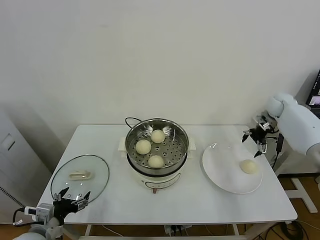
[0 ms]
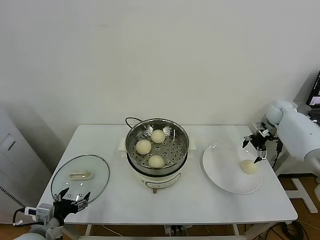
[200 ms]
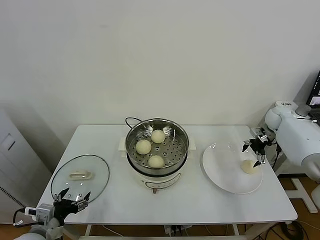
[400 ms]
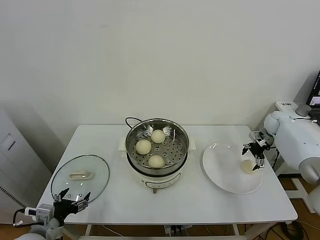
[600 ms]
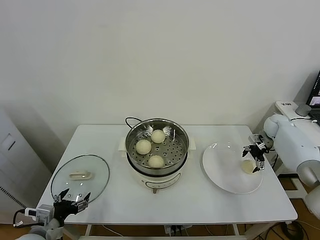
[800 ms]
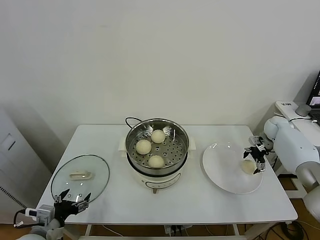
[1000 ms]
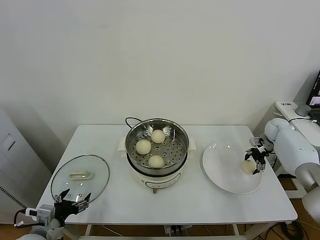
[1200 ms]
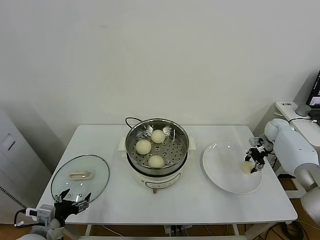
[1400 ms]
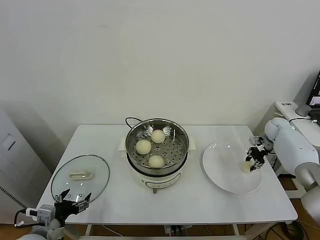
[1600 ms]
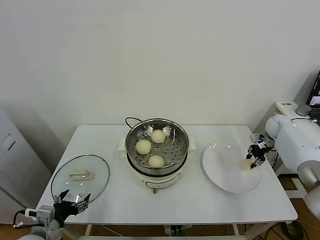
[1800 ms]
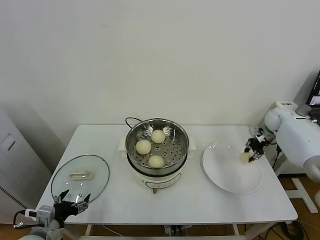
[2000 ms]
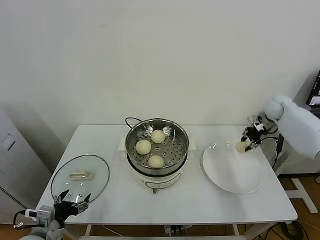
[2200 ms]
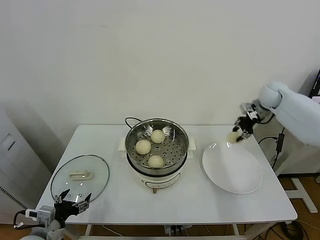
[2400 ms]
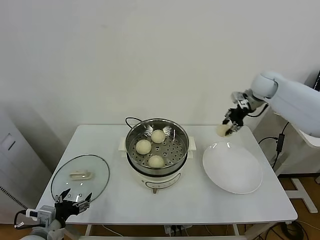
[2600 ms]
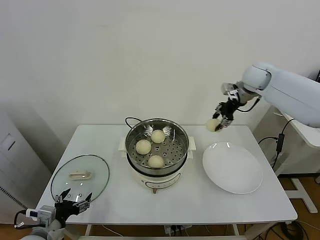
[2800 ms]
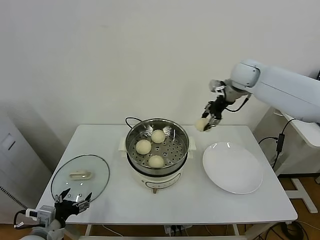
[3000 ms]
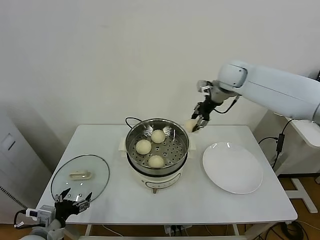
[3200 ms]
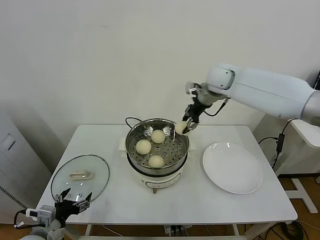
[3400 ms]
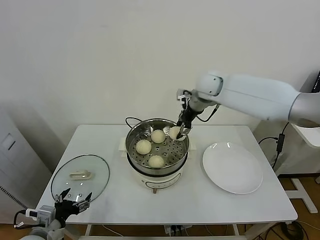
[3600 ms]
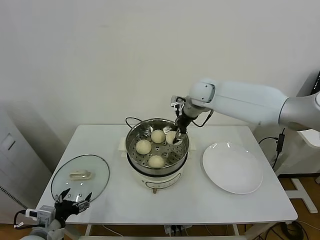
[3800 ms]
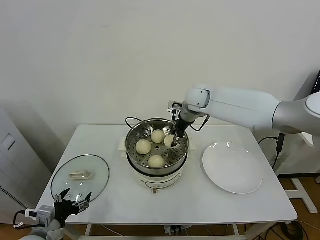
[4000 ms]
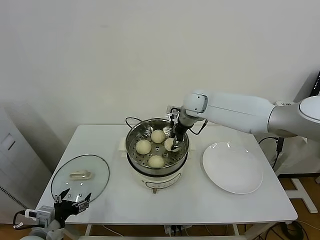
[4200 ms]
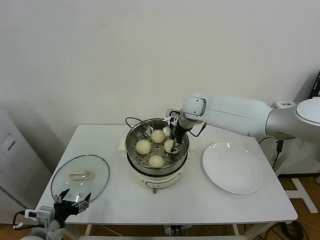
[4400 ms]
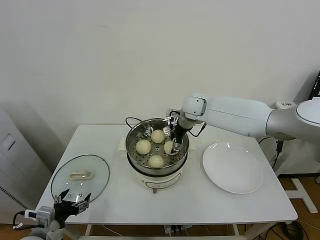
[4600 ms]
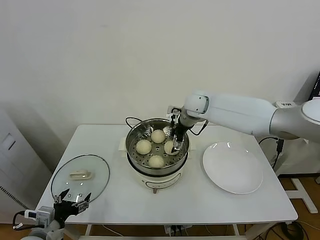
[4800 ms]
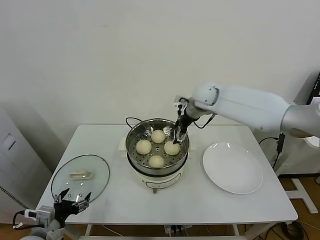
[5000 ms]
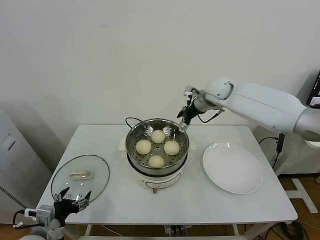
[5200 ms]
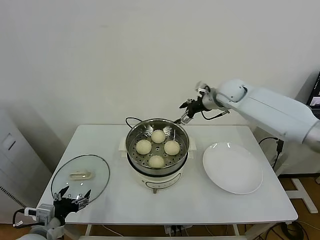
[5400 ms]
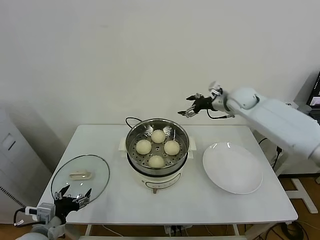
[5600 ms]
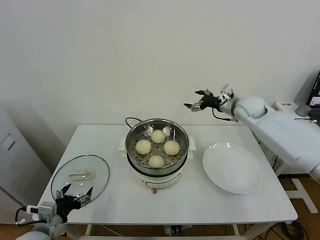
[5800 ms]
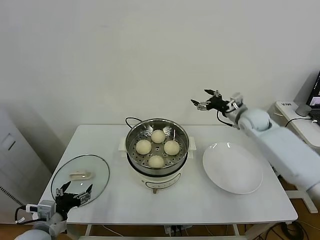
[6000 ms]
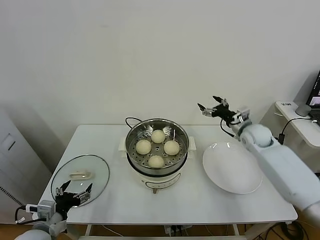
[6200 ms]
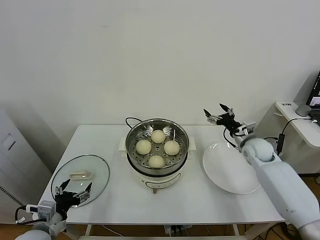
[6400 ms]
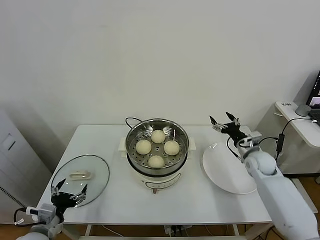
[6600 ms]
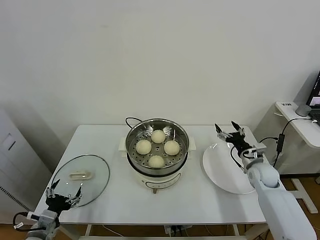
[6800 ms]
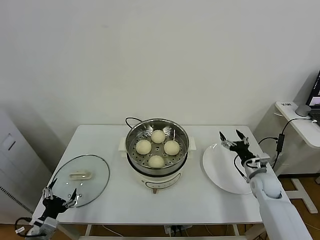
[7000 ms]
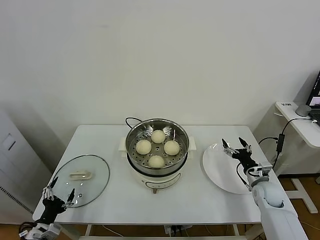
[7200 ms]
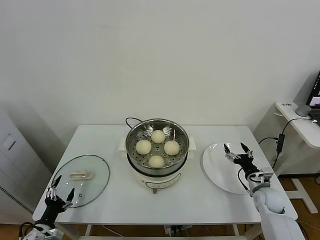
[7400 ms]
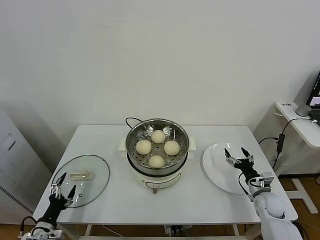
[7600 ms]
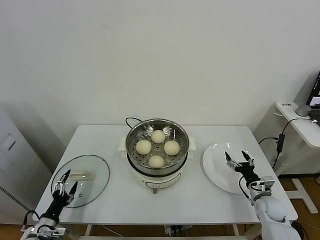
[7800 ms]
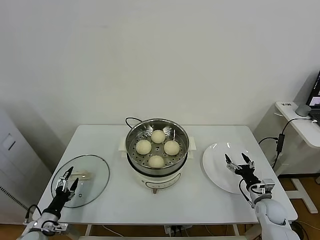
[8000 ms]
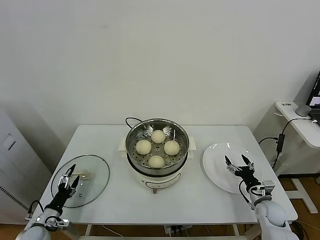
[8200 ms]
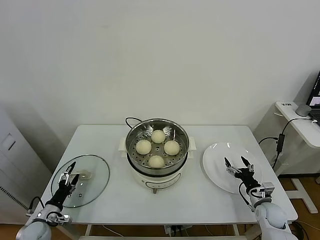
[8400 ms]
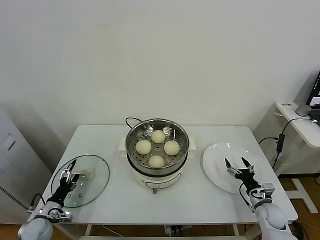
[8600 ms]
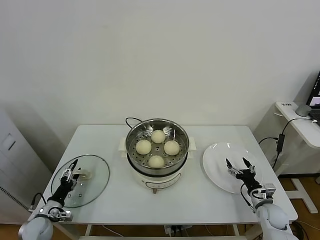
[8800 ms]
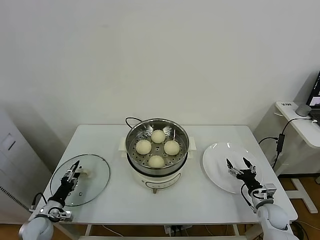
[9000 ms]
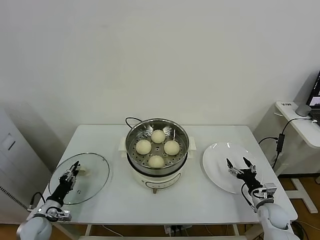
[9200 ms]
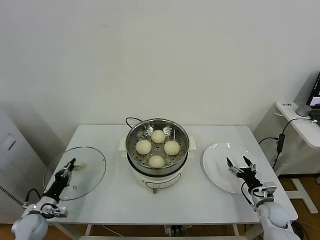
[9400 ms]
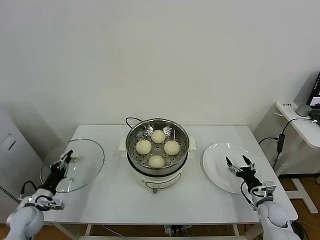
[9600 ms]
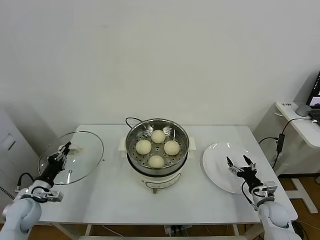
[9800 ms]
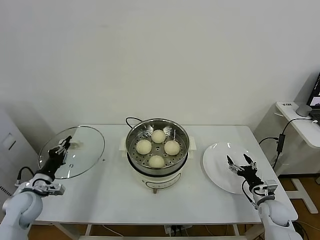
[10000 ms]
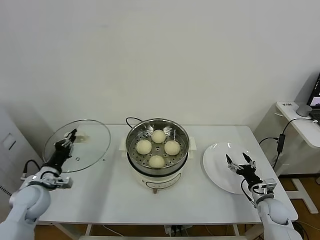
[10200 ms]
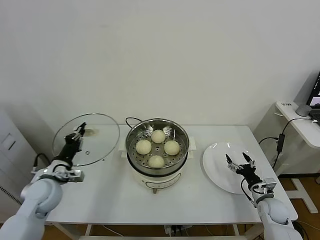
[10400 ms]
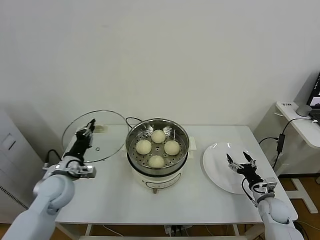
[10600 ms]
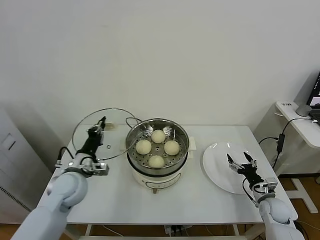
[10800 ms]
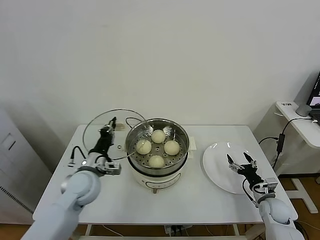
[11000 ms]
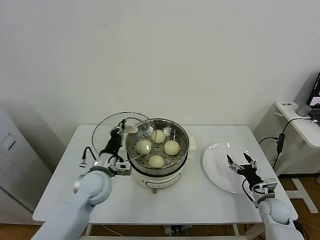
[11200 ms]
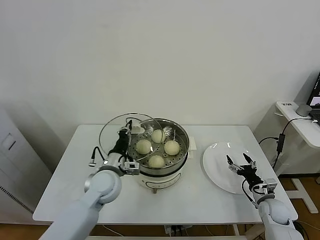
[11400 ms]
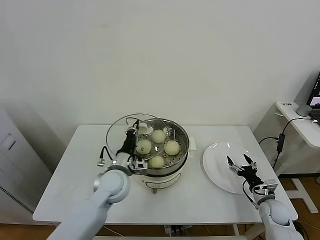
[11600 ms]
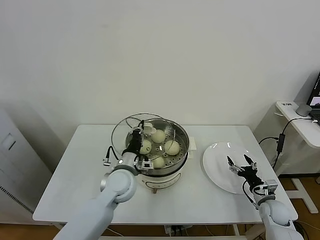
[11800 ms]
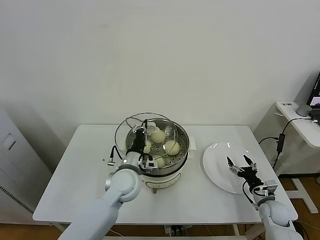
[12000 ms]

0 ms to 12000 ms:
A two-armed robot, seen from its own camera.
Task of the whole recording: take steamed baozi put them in steamer.
Step, 0 ms to 1400 ms: Grasp the baozi in the plate with right gripper.
Step, 1600 ms to 4800 ms: Place the baozi on the steamer with right gripper.
Step, 5000 ms to 9400 ms: Grasp the pot lid with left gripper.
0 ms to 1600 ms: The right gripper is displaced downward by roughly 10 cm, and closes.
1600 ms to 3000 ms: The right gripper shifts about 35 cm upward and to the left.
3000 ms to 4400 ms: The right gripper is displaced to the left and downward by roughly 20 cm.
4400 ms to 6000 ms: The right gripper shifts roughly 20 cm to the right, and opens up.
6000 ms to 7600 ms: The right gripper goes about 30 cm downward and backward; the left gripper travels downward and to the left by some 15 cm.
7600 ms to 9000 ms: The left gripper shifts approximately 10 cm forward, and closes up.
9000 ms to 10400 ms: The left gripper is displaced upward and to the right by approximately 20 cm, and closes up.
10400 ms to 12000 ms: The left gripper goes some 25 cm to the right.

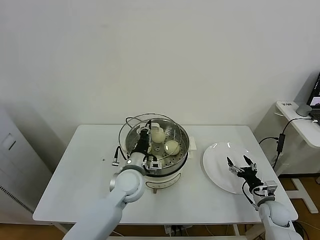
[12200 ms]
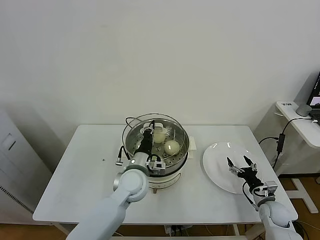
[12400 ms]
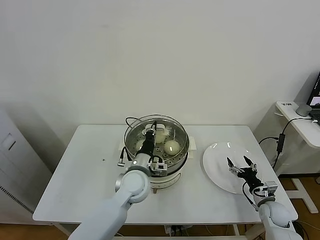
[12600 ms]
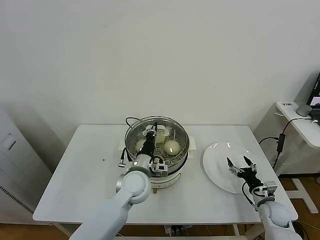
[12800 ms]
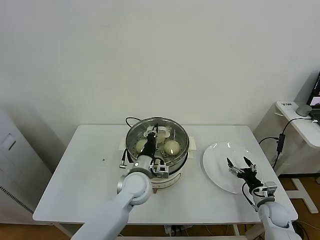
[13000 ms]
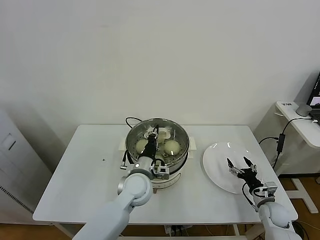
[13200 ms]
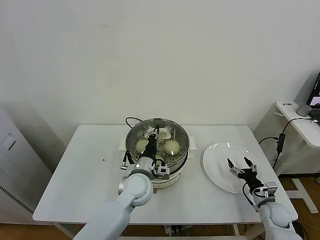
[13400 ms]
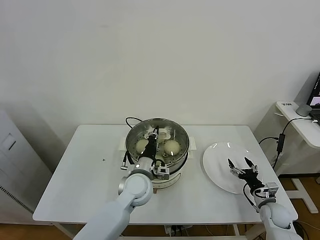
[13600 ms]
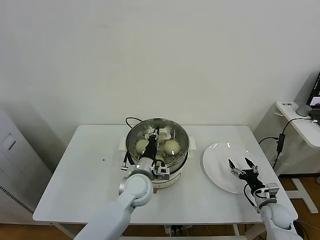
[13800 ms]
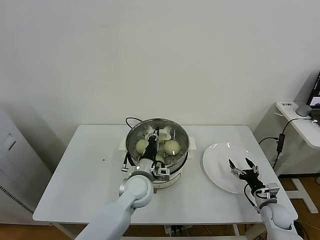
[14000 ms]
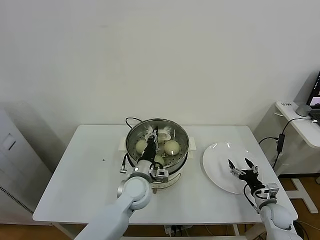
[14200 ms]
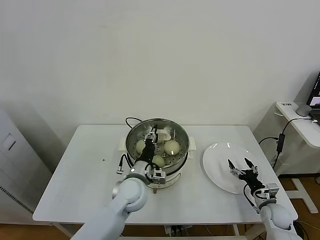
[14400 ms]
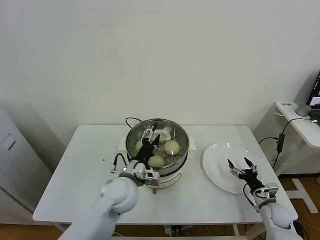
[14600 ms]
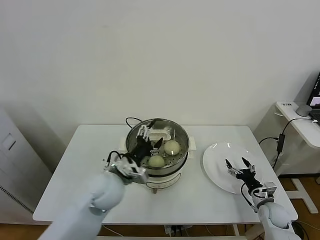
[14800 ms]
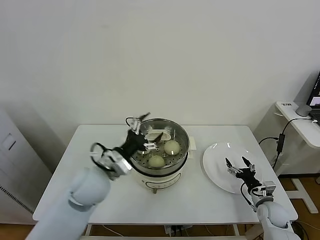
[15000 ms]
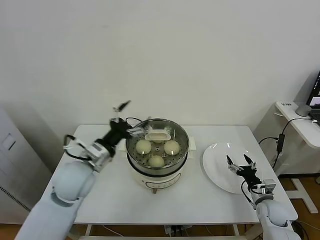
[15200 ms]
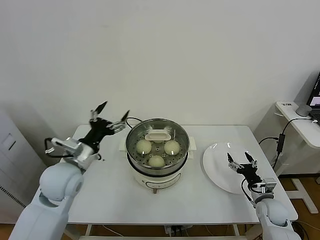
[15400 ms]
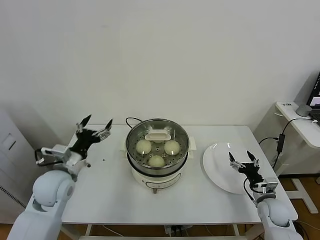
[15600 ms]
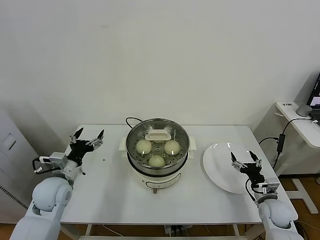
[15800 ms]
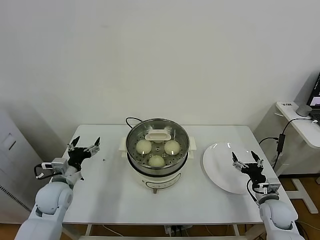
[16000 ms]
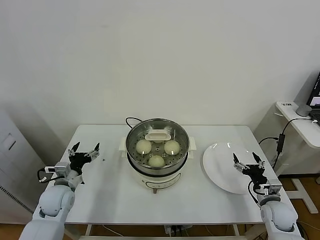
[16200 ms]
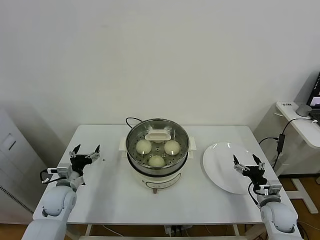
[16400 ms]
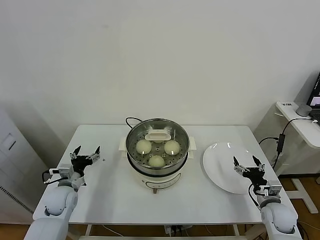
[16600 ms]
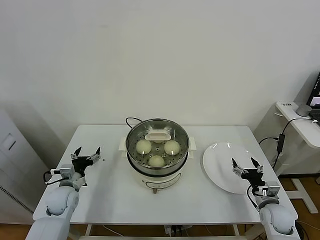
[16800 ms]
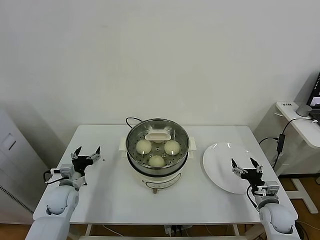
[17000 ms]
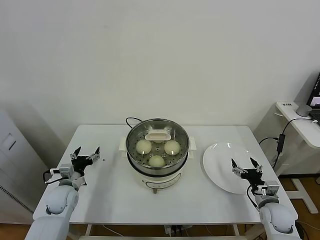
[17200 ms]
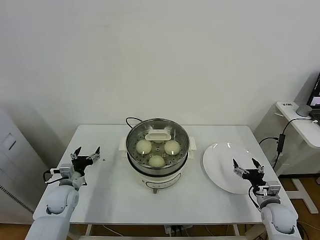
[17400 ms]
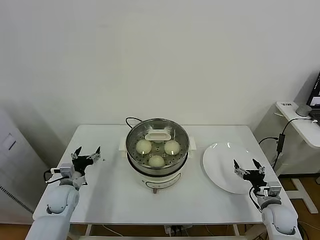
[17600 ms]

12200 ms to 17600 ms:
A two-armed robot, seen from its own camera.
Task of the whole recording: take steamed baozi put them in steamer.
Step, 12200 ms to 14600 ms: Place the pot lid on the steamer with left gripper.
12200 ms to 13600 ms: There are only small adjustments of the grippers.
13600 ms to 15000 ms: The left gripper moves to the left and upward, approximately 15 cm, and opens up.
15000 ms to 16200 ms: The left gripper travels to the left and downward by approximately 20 cm. The right gripper goes some 5 cm upward.
16200 ms to 17600 ms: The left gripper ends up approximately 5 cm from where it was.
